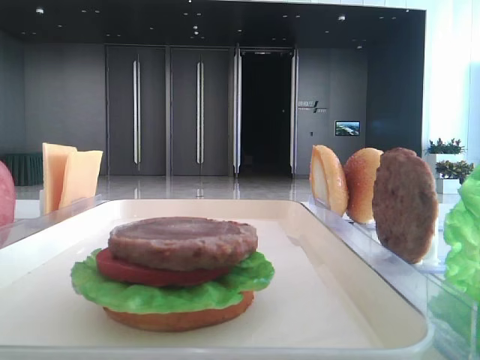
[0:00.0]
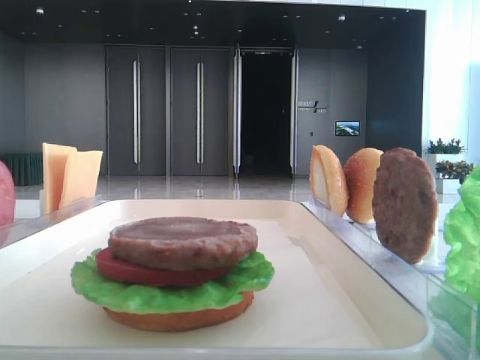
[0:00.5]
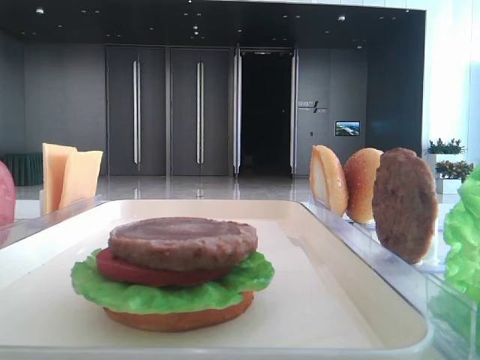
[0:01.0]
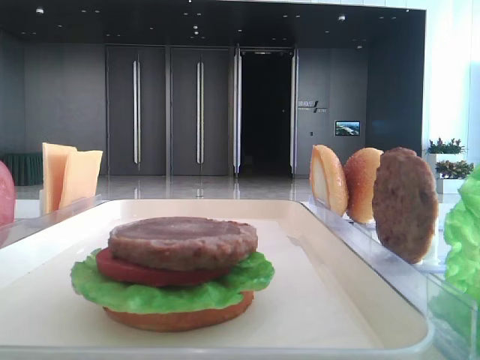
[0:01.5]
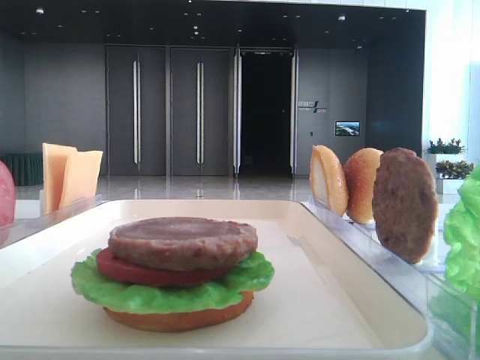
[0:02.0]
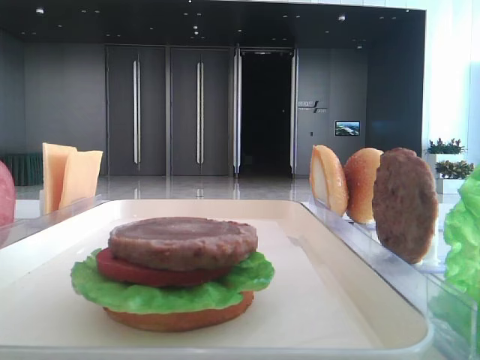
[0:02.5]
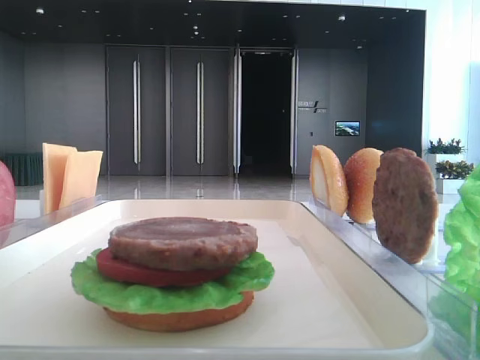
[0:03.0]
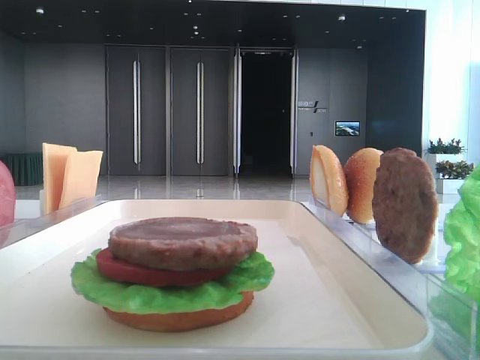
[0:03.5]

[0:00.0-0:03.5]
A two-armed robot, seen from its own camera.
0:02.0 to 0:03.5: The two grippers keep their place.

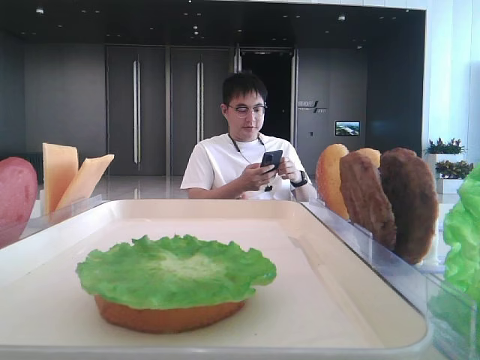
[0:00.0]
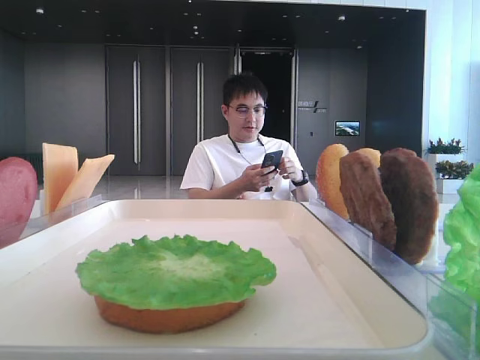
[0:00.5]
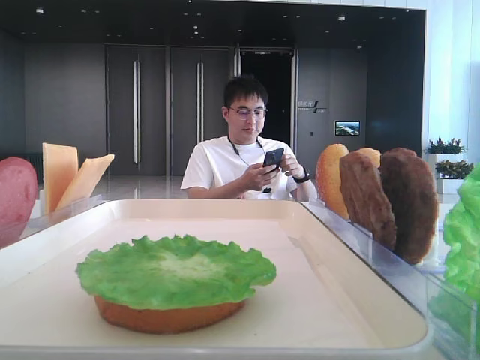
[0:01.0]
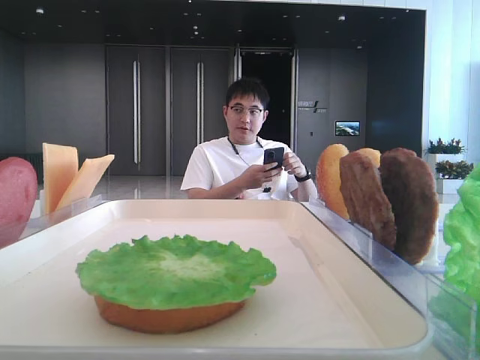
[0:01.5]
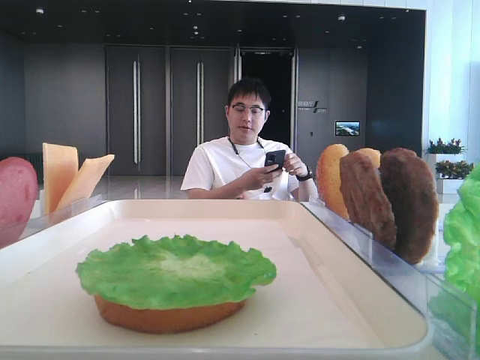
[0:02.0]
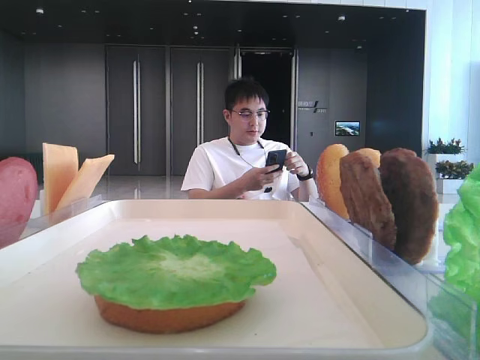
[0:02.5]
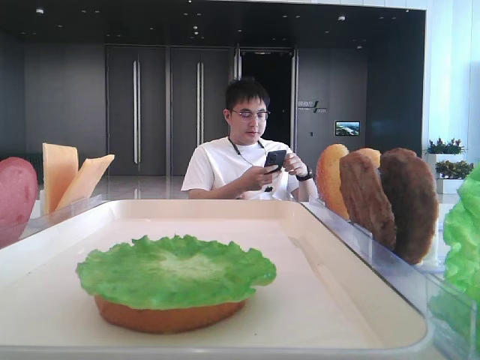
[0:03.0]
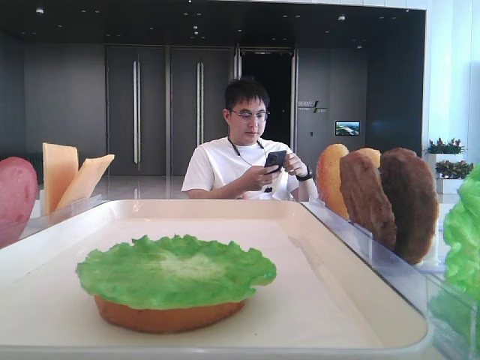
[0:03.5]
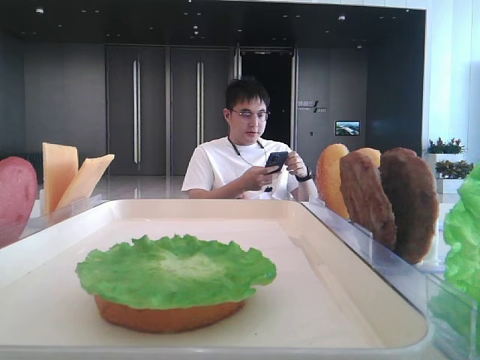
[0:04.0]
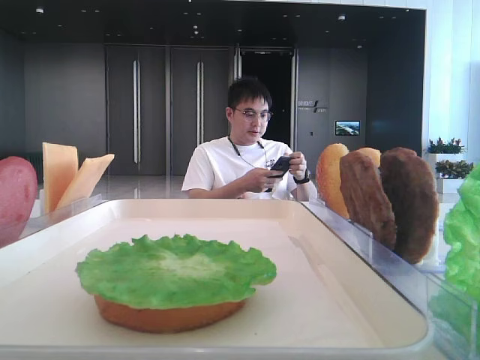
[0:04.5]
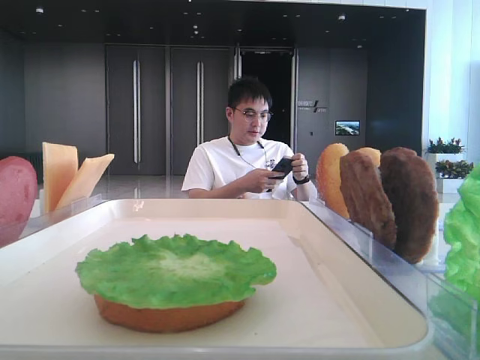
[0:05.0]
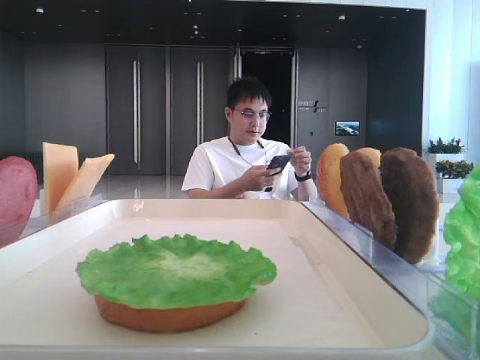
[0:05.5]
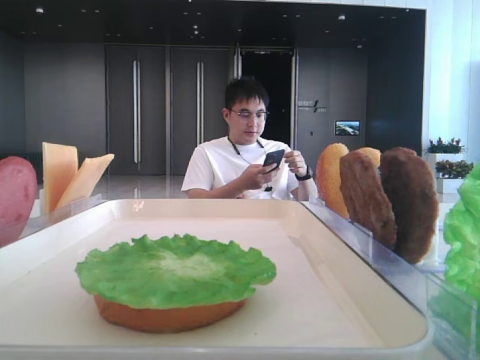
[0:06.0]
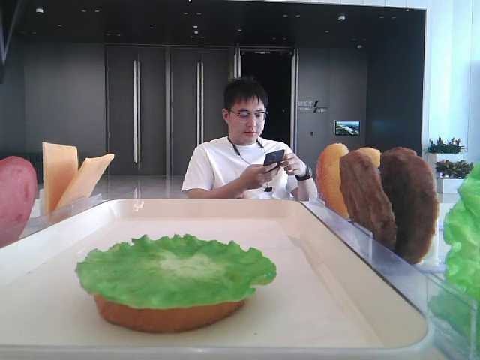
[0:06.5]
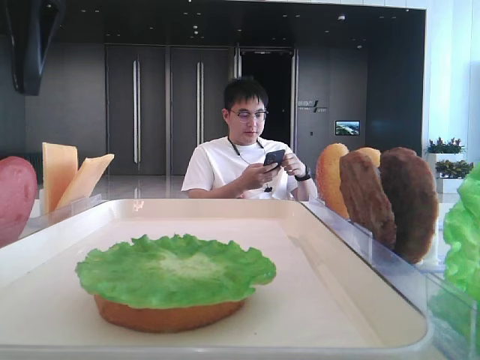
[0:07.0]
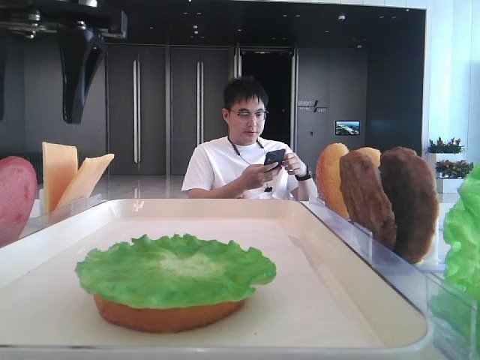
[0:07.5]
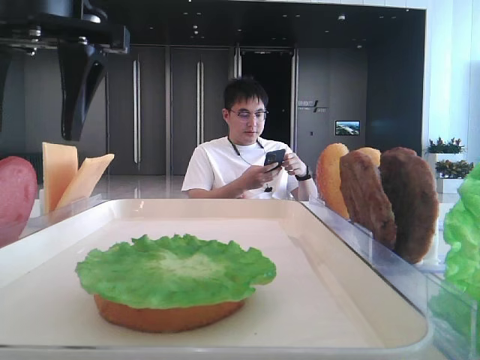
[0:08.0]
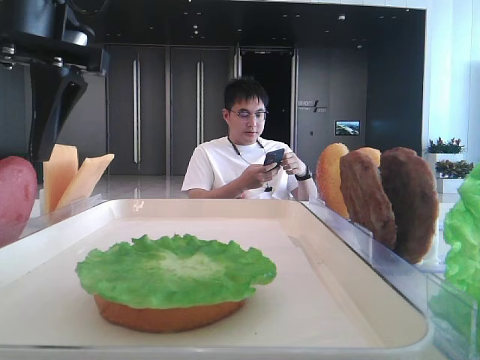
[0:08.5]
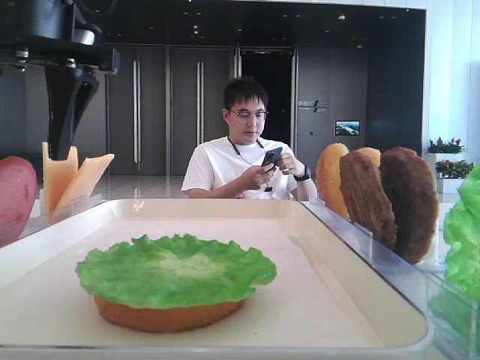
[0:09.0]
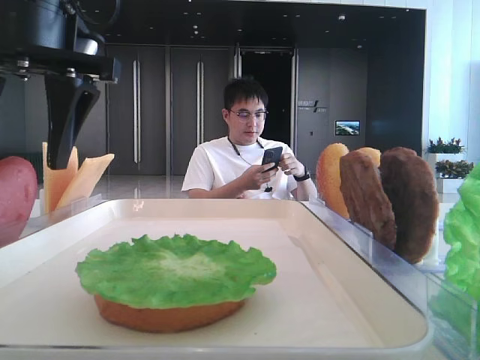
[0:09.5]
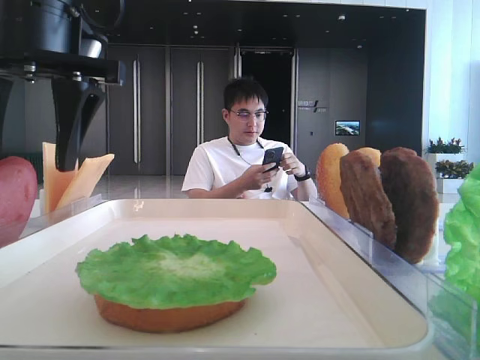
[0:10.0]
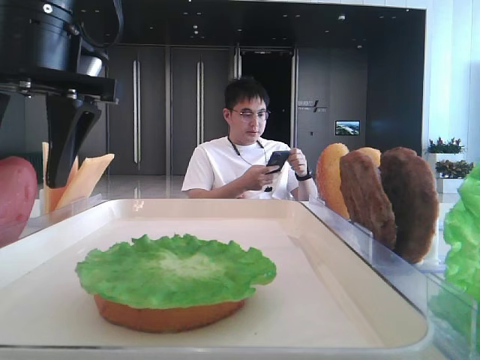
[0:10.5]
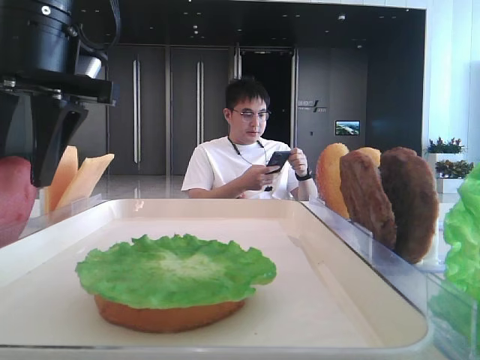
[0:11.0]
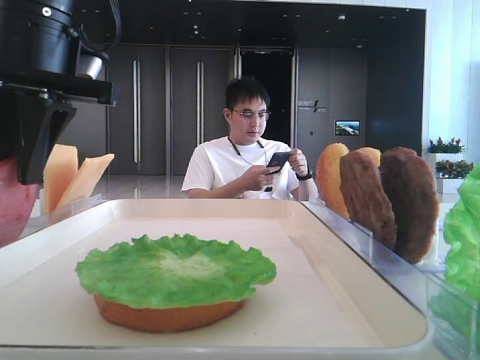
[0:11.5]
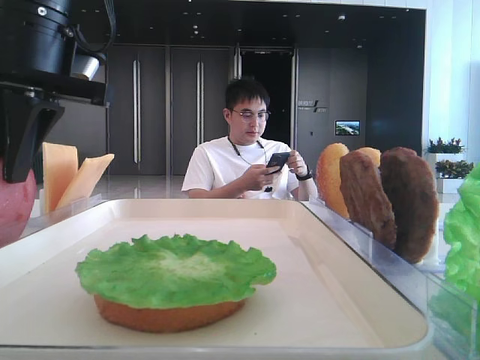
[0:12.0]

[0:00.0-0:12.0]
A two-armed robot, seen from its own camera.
Step, 0:00.0 to 0:12.0: Pick up the tomato slice with the left hand.
0:02.0 to 0:04.0: The left gripper moves forward, approximately 15 cm.
0:04.0 to 0:06.0: The left gripper heads forward and to the right, covering about 15 cm.
0:06.0 to 0:08.0: The left gripper is displaced to the right by approximately 10 cm.
0:08.0 to 0:10.0: The grippers make only small movements.
0:10.0 to 0:12.0: The left gripper closes up.

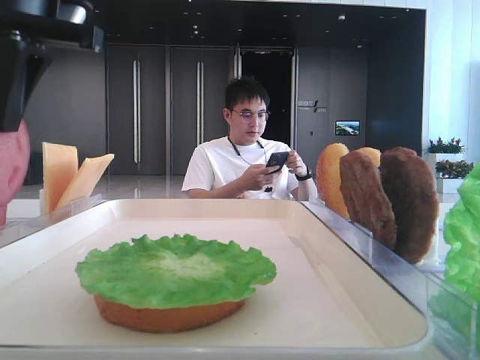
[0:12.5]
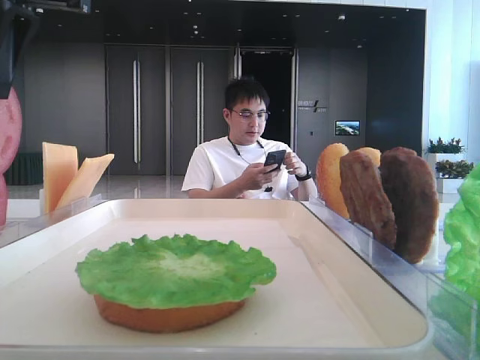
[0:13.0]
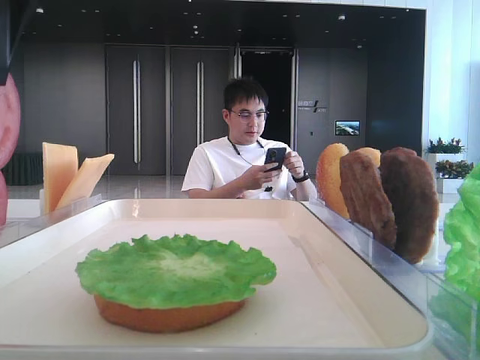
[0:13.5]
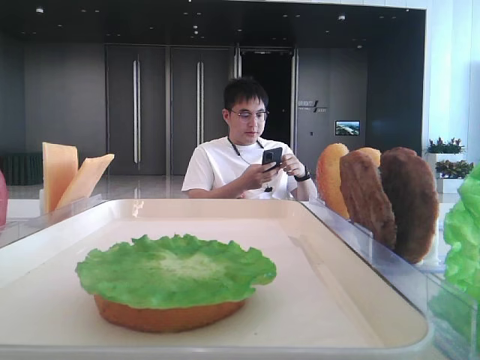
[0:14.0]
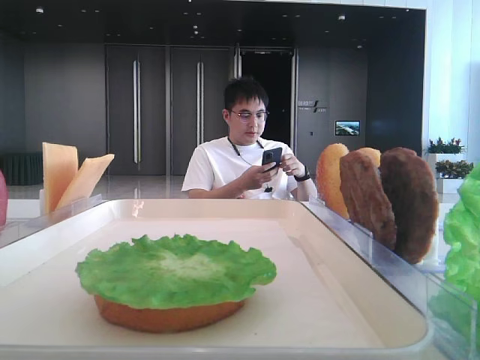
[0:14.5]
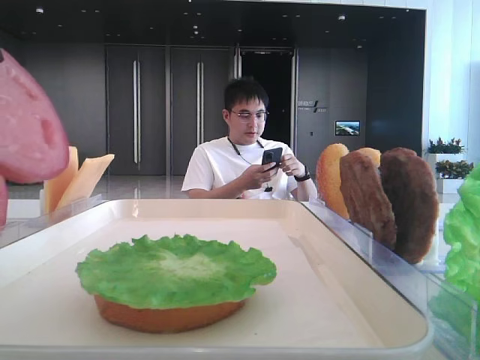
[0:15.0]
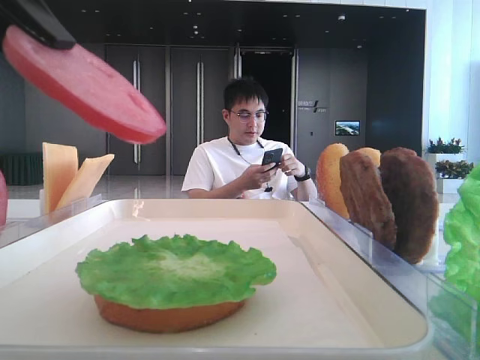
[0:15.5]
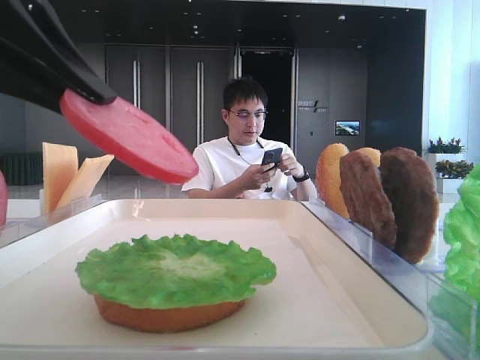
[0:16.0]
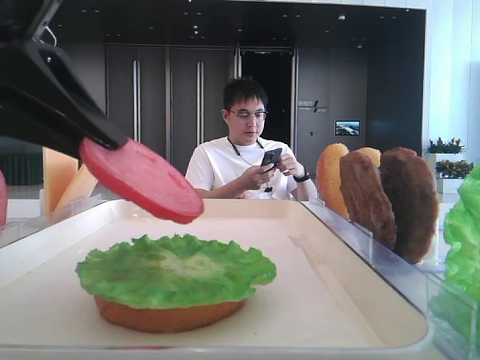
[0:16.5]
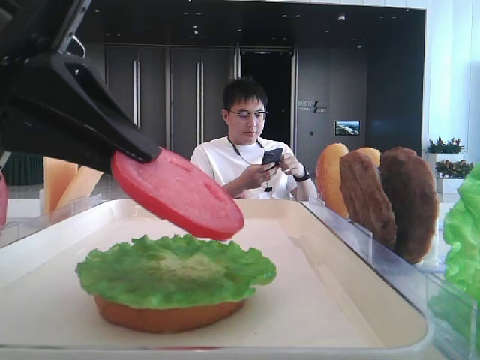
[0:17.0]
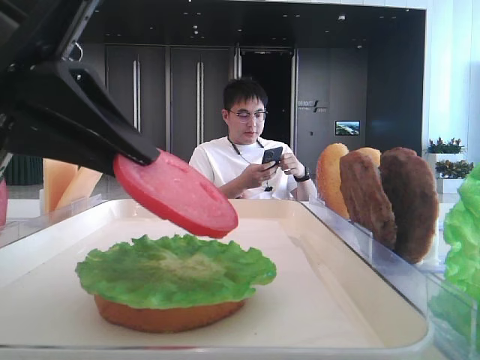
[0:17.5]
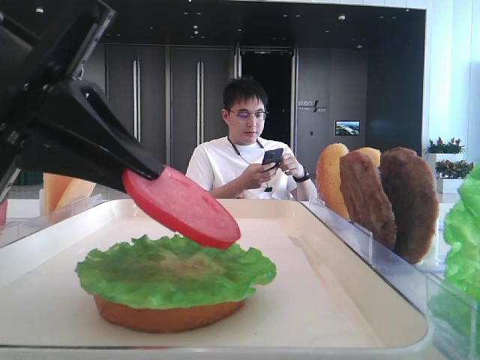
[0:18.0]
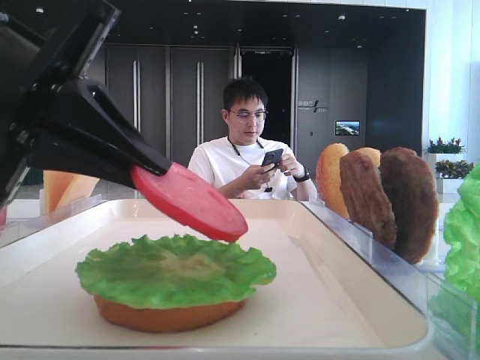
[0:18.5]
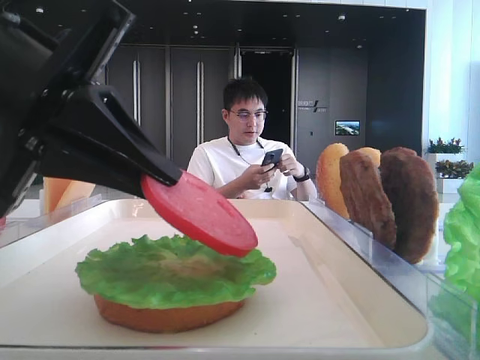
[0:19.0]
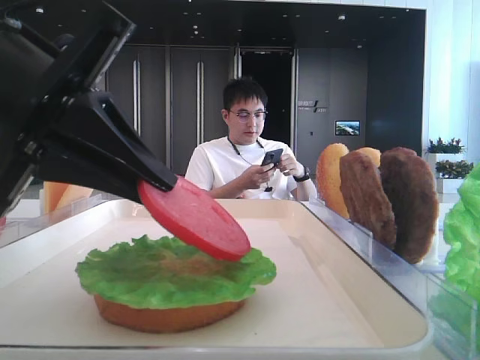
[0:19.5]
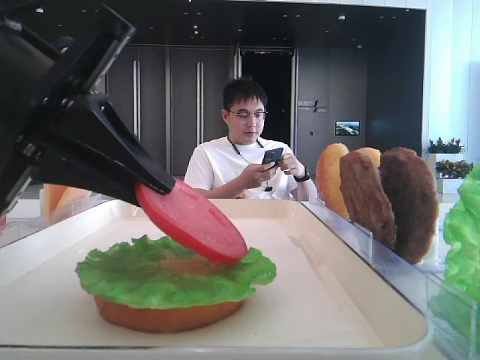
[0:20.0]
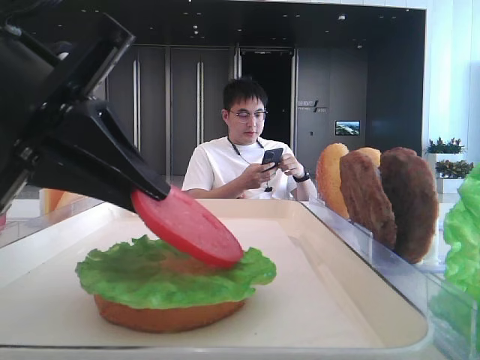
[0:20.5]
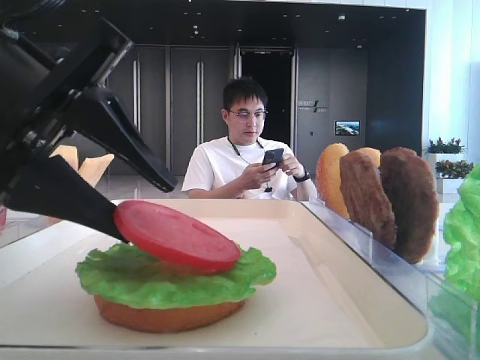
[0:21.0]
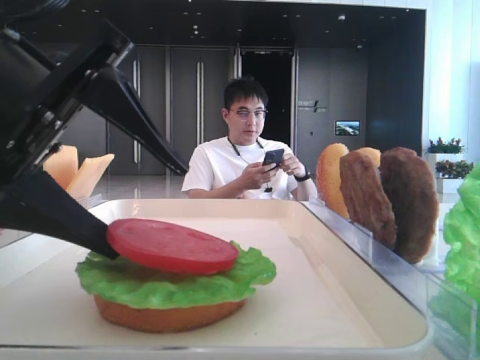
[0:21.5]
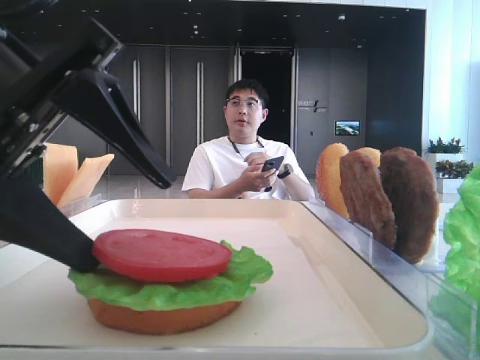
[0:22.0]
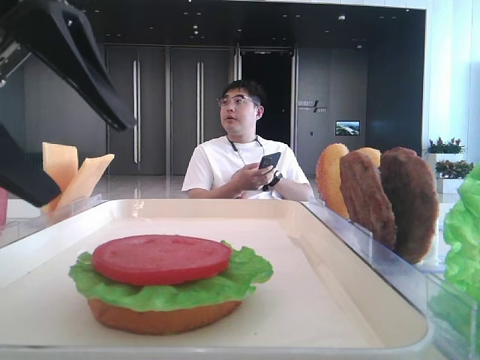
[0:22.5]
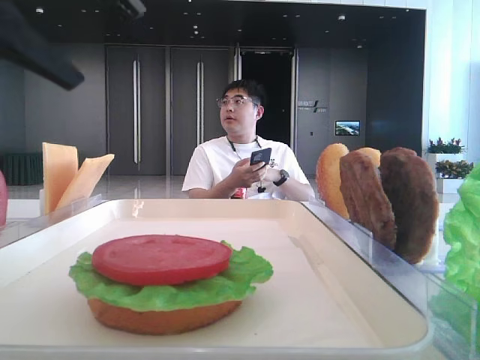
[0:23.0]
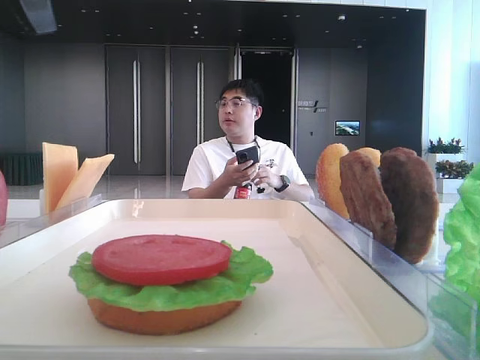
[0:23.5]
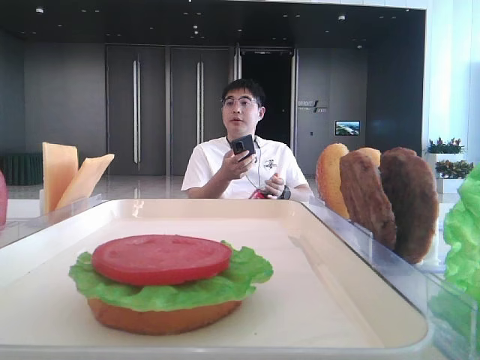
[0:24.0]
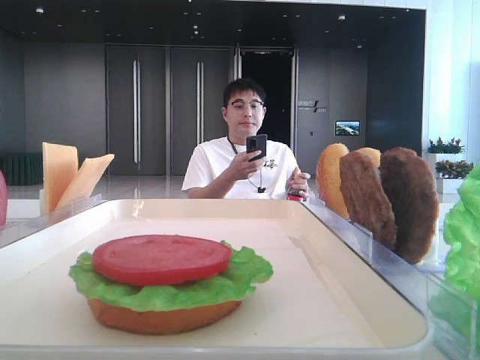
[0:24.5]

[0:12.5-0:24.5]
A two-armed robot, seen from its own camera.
Step, 0:12.5 to 0:22.0: Place the tomato slice on the lettuce leaf with the left hand.
0:12.5 to 0:14.5: The left gripper is displaced backward by about 10 cm.
0:14.5 to 0:16.5: The left gripper heads downward, covering roughly 10 cm.
0:16.5 to 0:20.5: The grippers stay close to where they were, moving slightly.
0:20.5 to 0:22.5: The left gripper opens.
0:22.5 to 0:24.5: The left gripper heads upward and to the left, covering approximately 15 cm.
